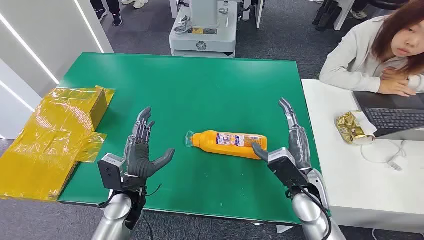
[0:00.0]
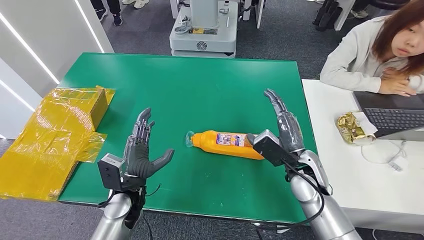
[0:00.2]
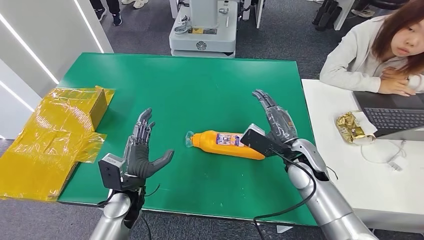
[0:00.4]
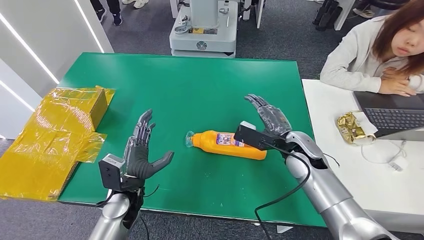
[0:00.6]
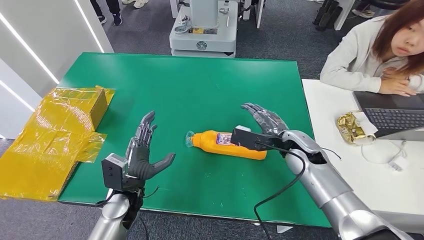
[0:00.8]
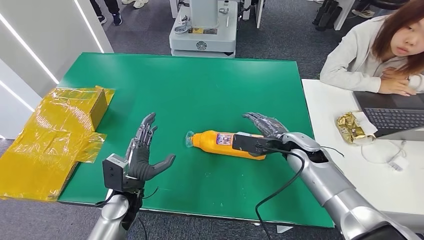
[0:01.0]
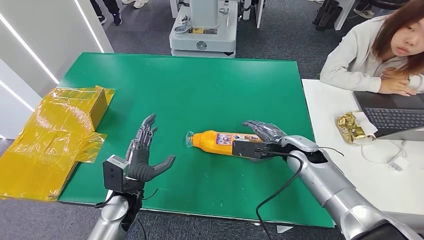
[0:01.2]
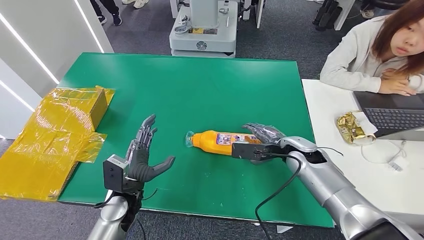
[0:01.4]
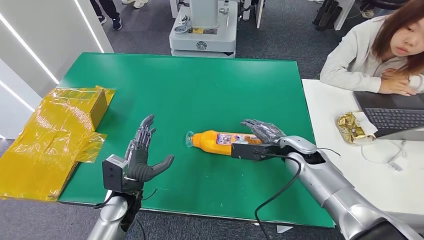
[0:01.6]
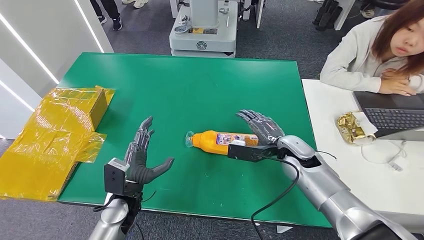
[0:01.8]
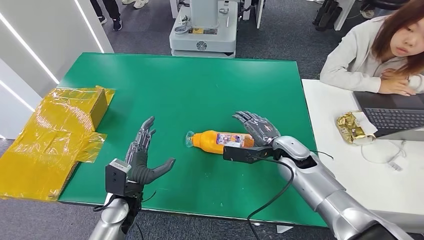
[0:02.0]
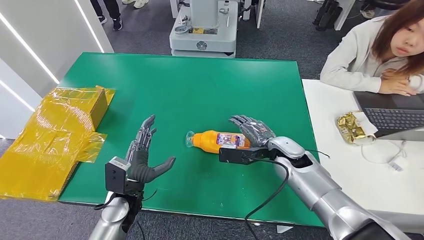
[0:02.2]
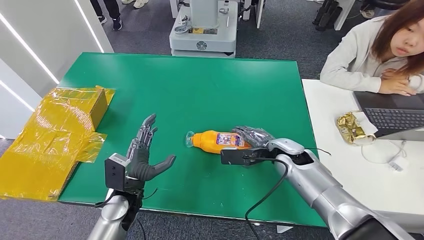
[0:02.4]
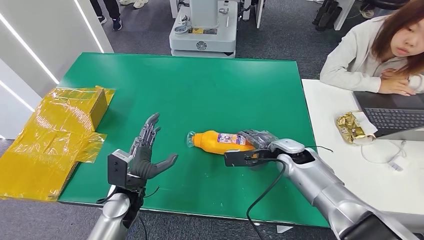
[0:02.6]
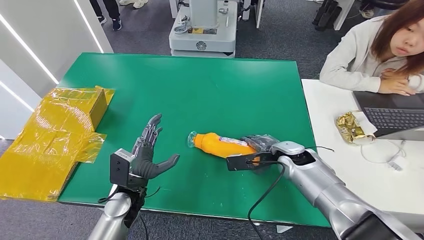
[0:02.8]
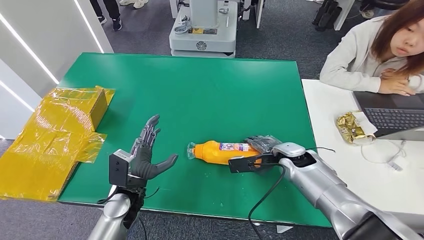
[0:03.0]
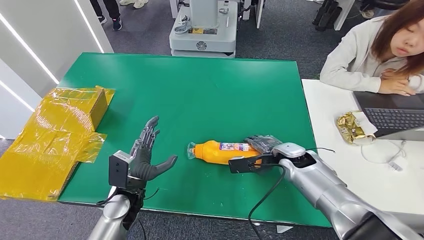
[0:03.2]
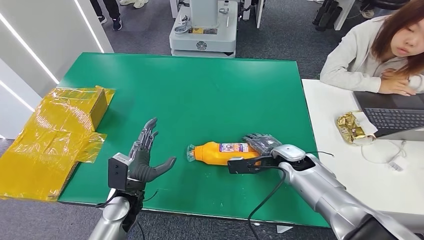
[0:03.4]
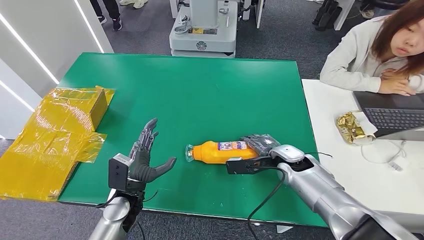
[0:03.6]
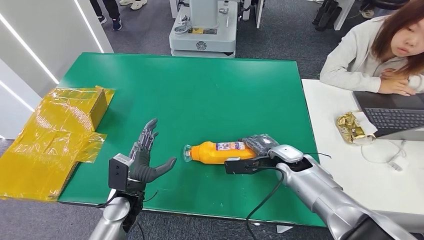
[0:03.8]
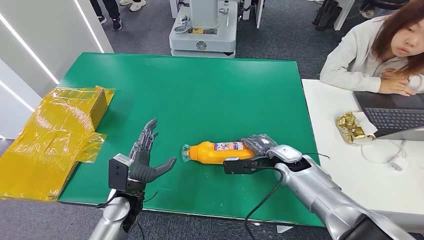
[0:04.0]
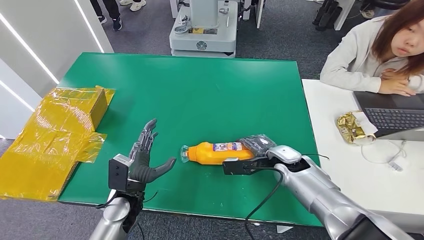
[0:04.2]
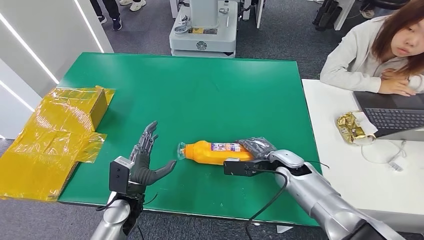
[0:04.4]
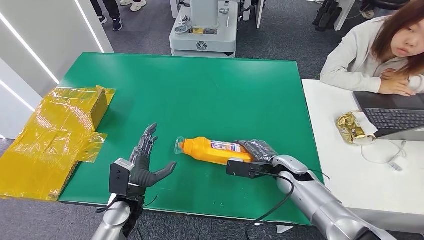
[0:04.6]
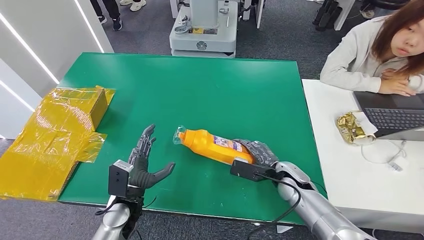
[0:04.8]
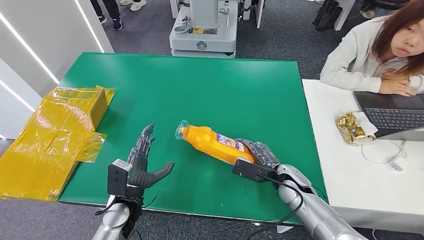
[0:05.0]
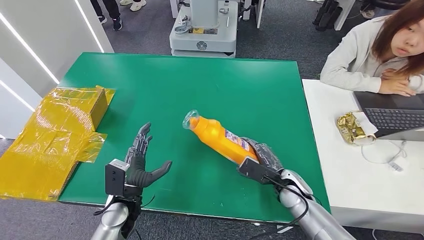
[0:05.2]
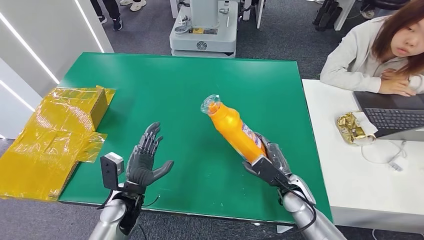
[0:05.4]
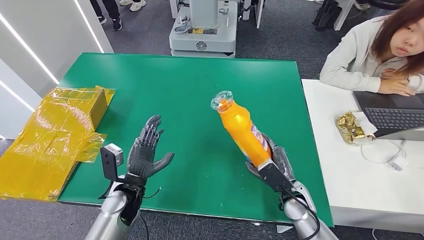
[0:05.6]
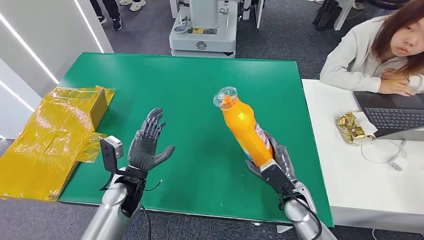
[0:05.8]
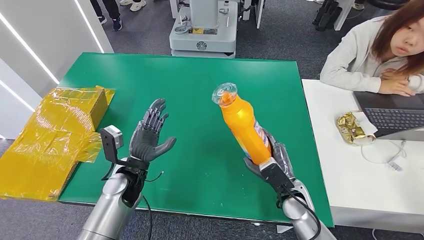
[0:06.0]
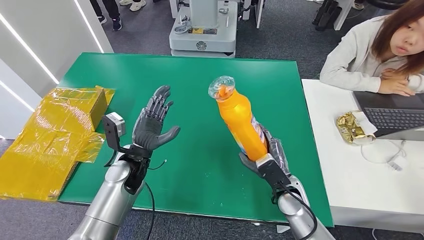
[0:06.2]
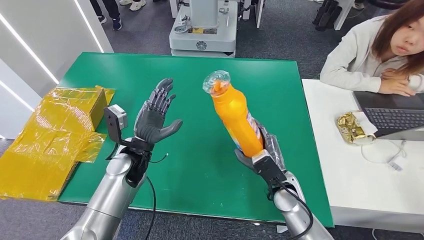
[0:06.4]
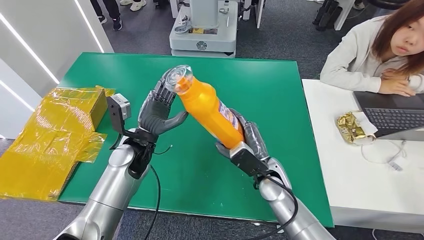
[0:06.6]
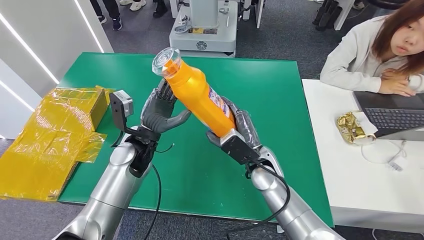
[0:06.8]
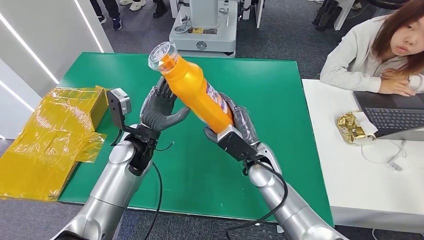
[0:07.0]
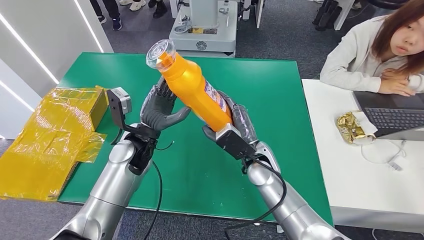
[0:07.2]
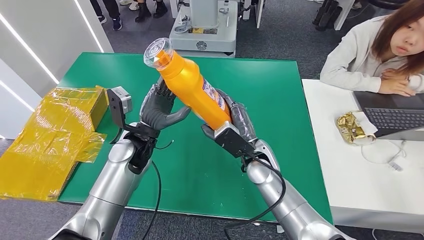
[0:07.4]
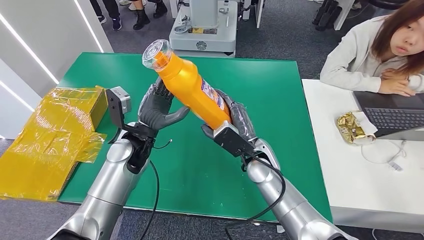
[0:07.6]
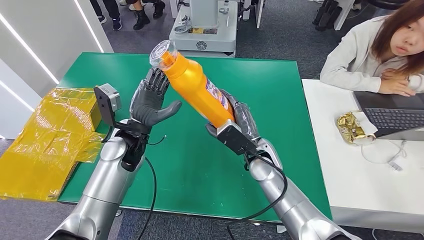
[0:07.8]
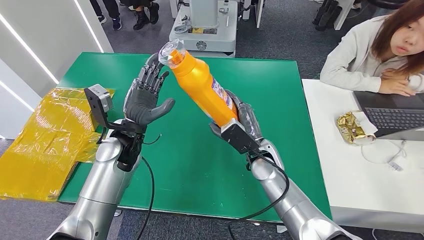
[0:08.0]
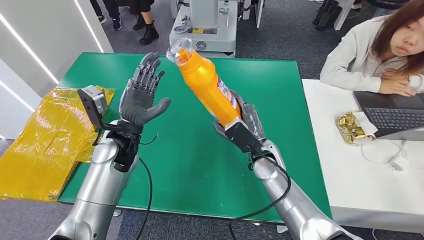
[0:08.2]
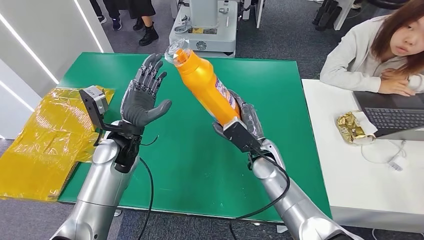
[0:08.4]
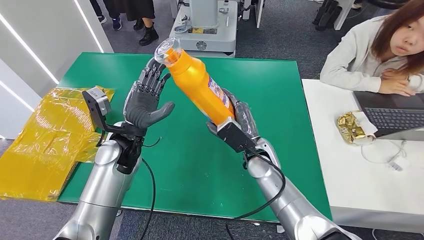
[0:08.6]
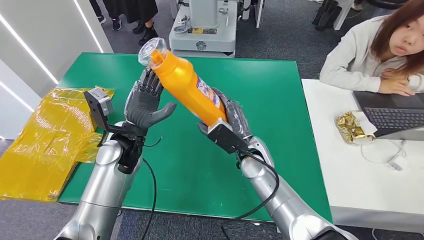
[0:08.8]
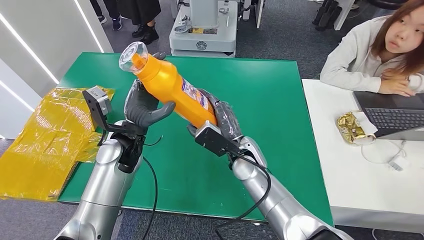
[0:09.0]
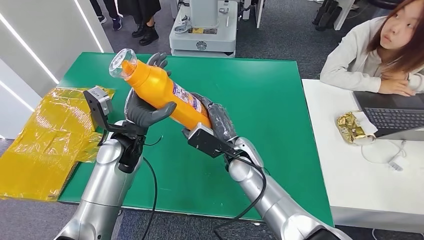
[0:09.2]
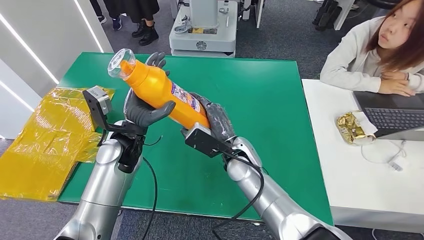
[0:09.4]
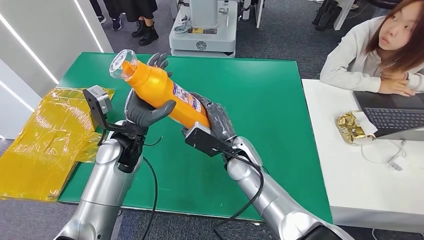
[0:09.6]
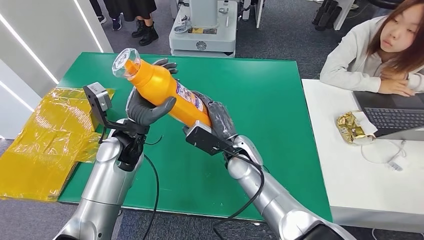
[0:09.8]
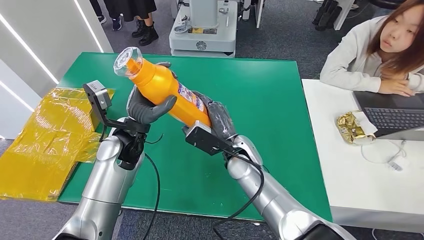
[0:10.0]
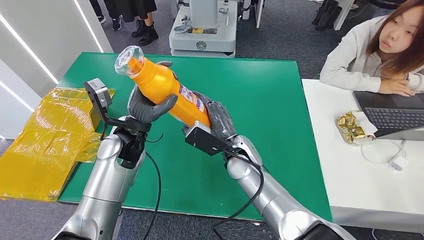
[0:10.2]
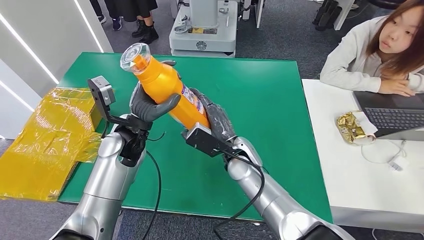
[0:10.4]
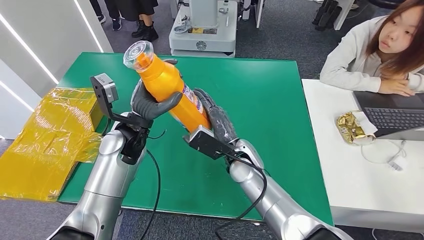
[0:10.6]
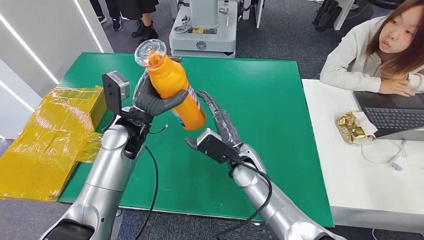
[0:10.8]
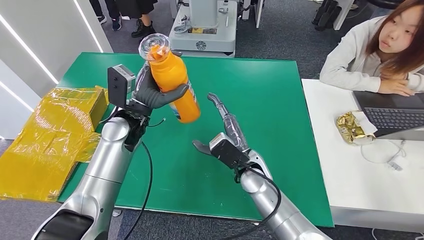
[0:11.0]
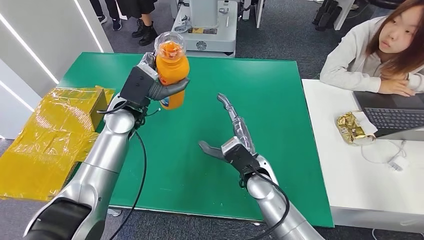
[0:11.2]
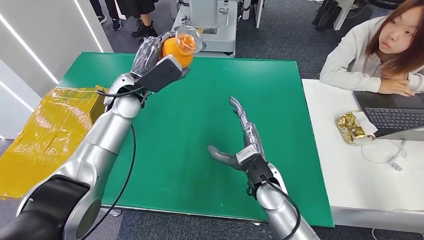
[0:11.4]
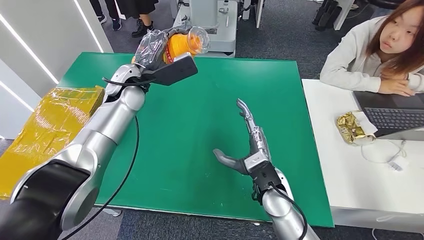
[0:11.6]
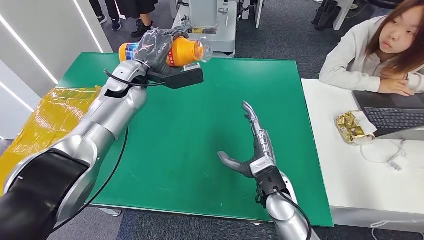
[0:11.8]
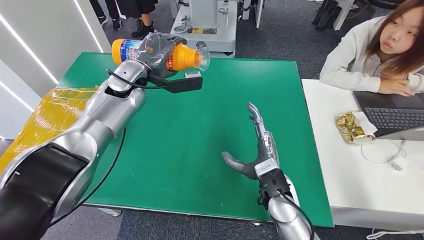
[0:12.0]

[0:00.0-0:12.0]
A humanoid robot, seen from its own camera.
Step, 0:00.0 to 0:05.6: Pick up the bottle from the table.
0:03.0 to 0:04.4: The hands stay close to where they were, moving slightly.
0:04.4 to 0:06.0: The left hand travels forward by about 5 cm, while the right hand shifts approximately 10 cm backward.
0:06.0 to 0:07.6: The left hand is displaced upward and forward by some 10 cm. Meanwhile the right hand heads to the left, upward and forward, covering some 15 cm.
0:07.6 to 0:10.4: The hands stay close to where they were, moving slightly.

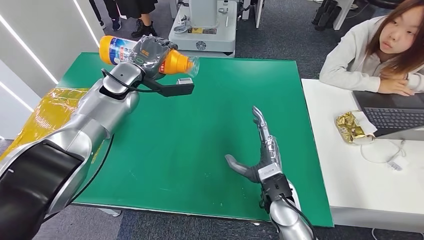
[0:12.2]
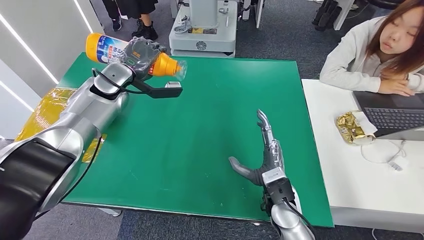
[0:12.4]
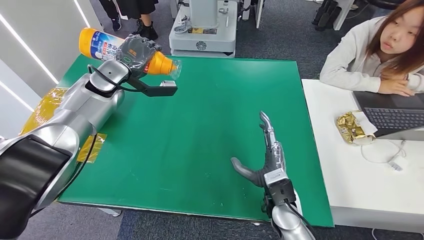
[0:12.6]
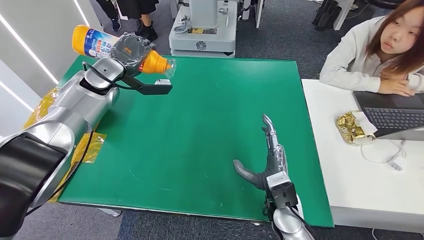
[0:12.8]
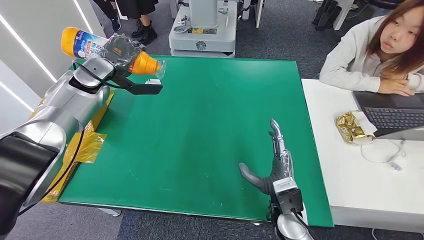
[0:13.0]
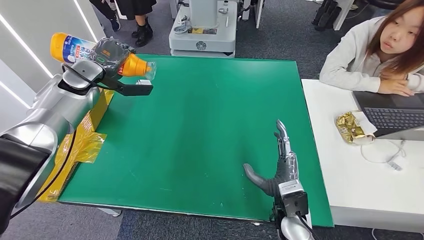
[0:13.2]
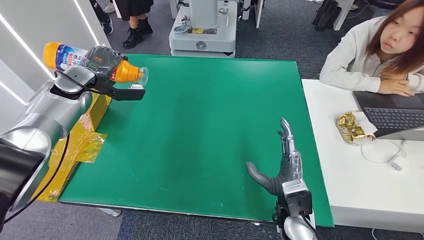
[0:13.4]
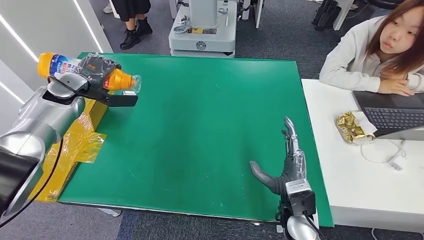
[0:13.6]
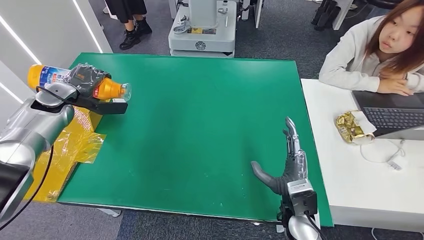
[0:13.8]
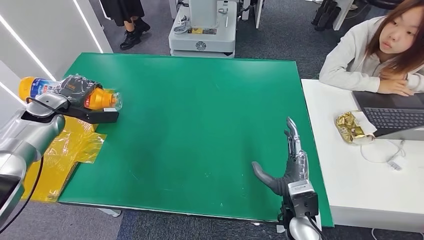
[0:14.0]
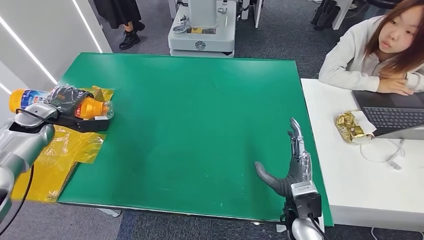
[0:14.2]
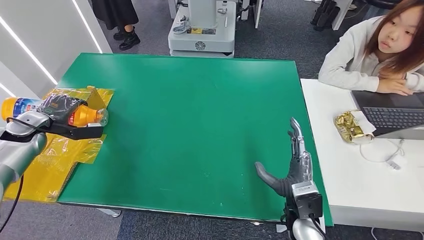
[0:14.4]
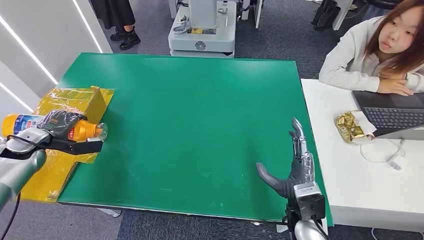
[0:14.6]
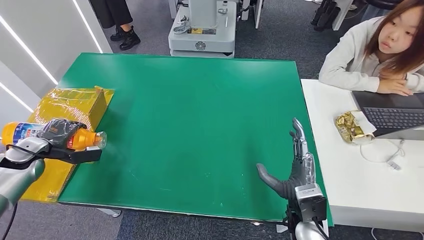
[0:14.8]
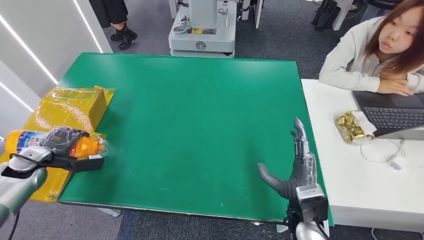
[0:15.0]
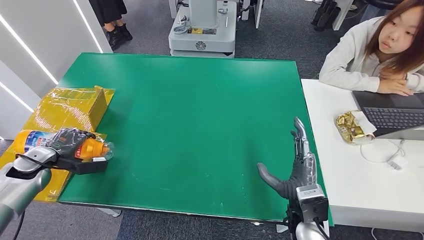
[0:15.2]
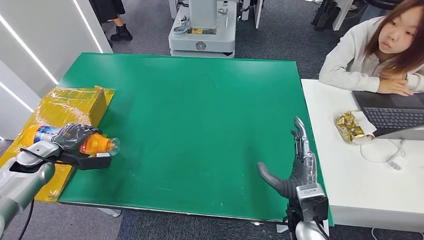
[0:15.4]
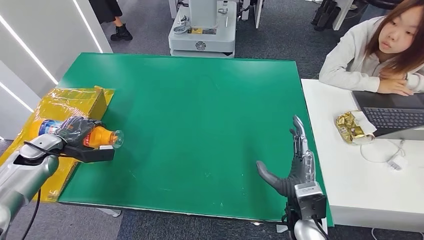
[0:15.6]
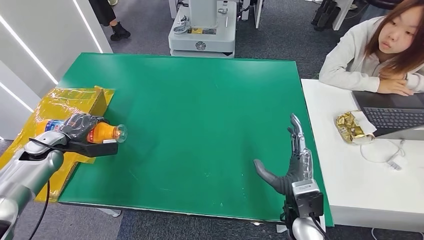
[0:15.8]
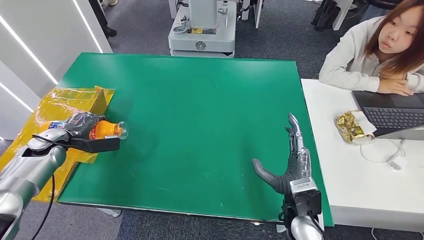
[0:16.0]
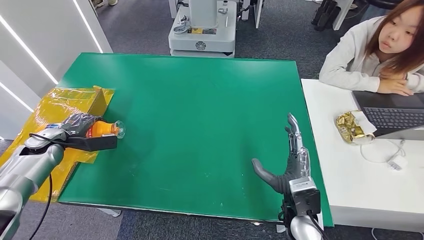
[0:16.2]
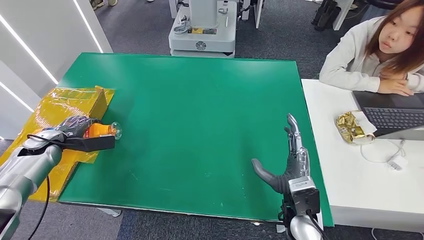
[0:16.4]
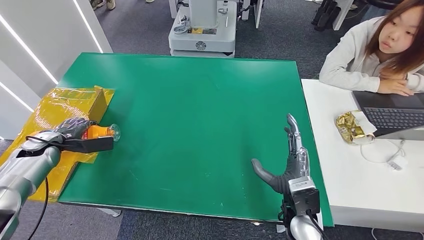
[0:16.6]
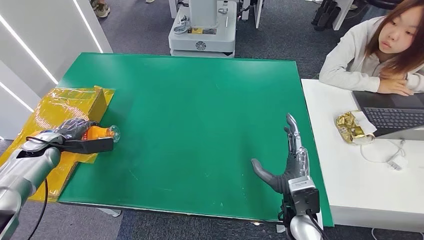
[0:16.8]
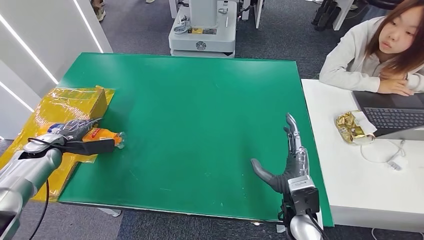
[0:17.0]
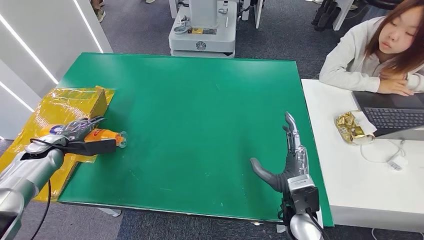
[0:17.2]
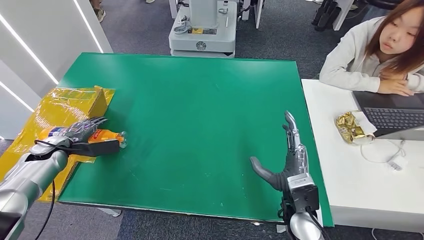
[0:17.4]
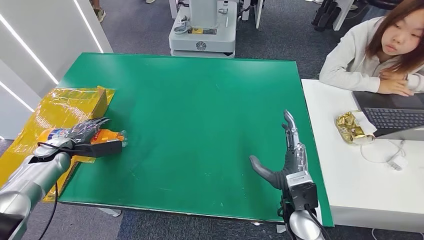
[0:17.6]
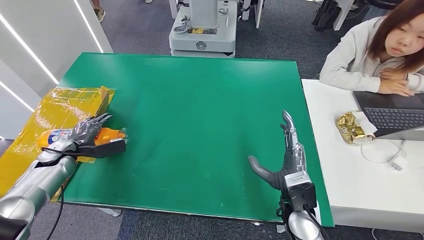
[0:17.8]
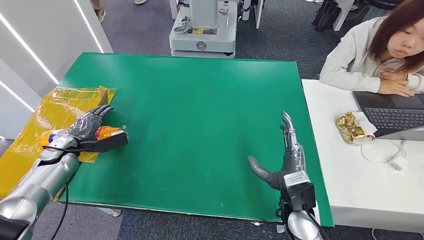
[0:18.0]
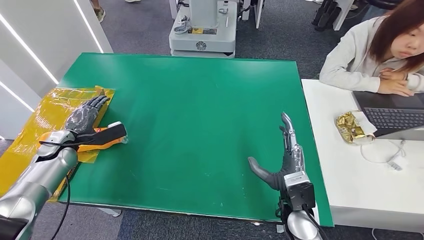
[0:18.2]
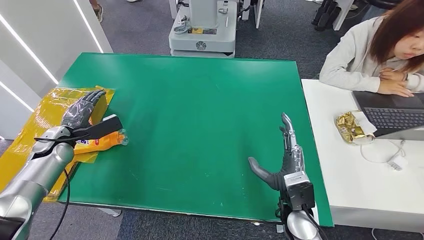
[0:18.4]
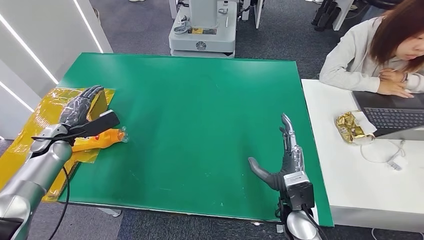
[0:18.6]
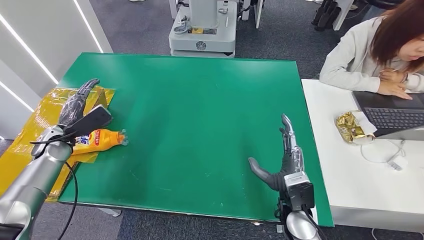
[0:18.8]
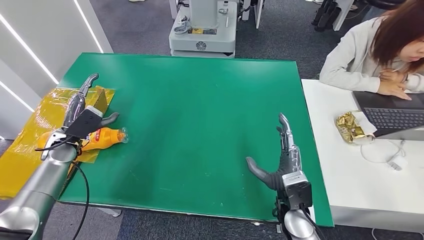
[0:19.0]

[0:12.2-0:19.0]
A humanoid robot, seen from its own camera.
0:13.6 to 0:15.0: The left hand goes about 25 cm backward, downward and to the left.
0:15.0 to 0:16.2: The left hand shifts about 5 cm forward.
0:16.2 to 0:17.6: There are only small adjustments of the hands.
0:17.6 to 0:19.0: The left hand moves to the right, roughly 5 cm.
